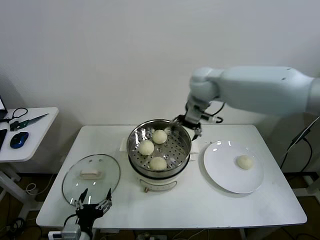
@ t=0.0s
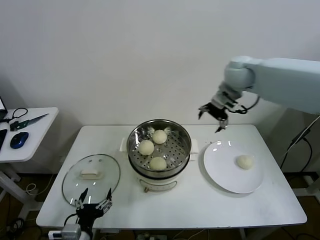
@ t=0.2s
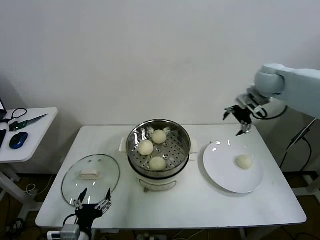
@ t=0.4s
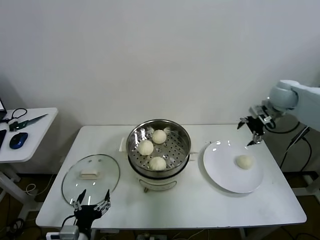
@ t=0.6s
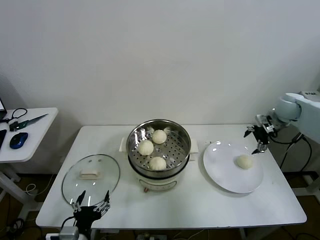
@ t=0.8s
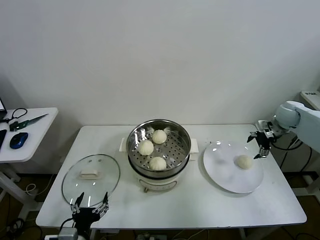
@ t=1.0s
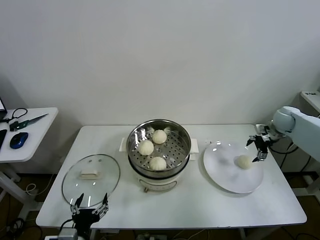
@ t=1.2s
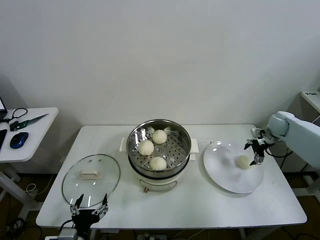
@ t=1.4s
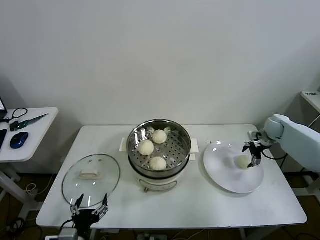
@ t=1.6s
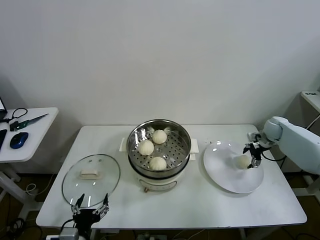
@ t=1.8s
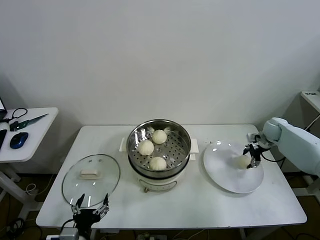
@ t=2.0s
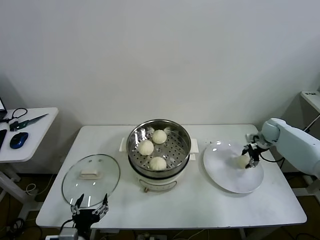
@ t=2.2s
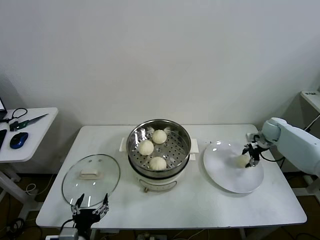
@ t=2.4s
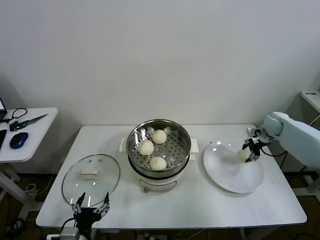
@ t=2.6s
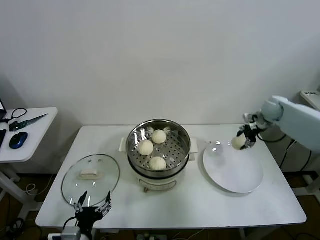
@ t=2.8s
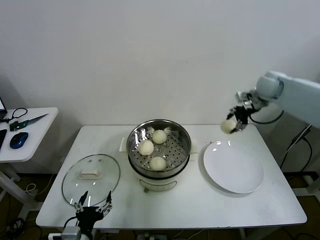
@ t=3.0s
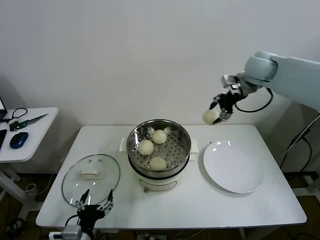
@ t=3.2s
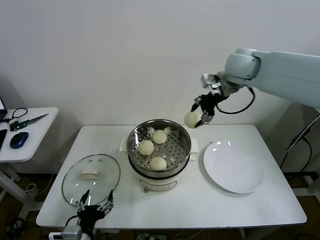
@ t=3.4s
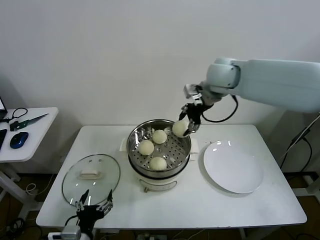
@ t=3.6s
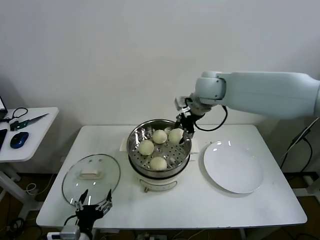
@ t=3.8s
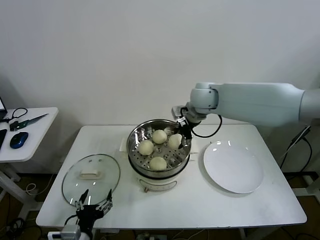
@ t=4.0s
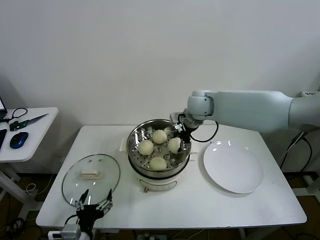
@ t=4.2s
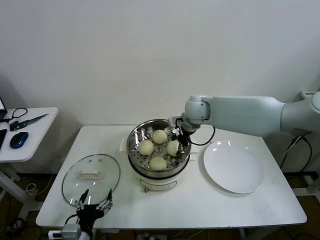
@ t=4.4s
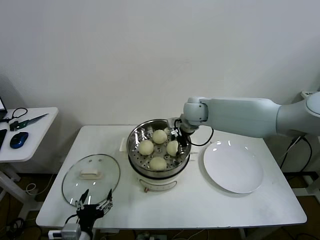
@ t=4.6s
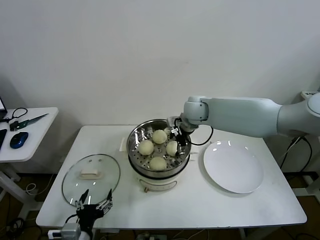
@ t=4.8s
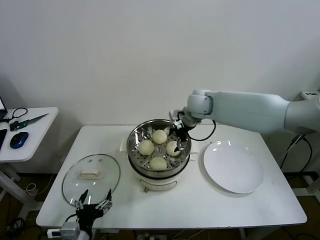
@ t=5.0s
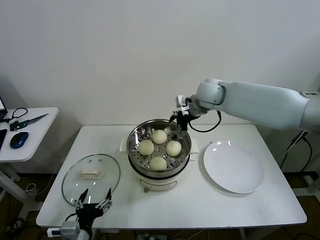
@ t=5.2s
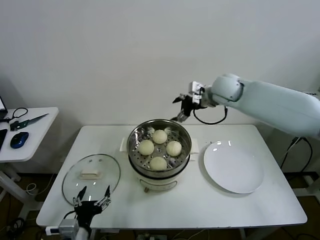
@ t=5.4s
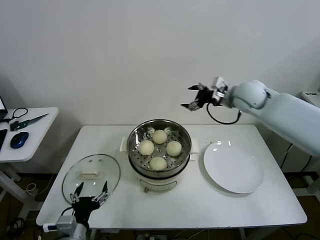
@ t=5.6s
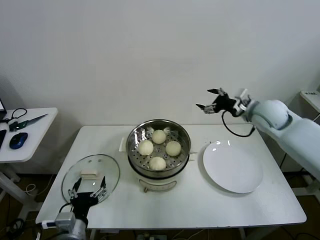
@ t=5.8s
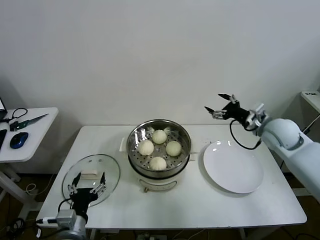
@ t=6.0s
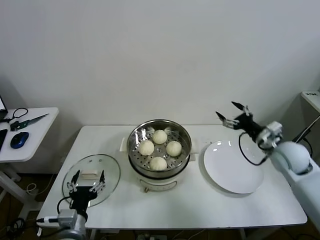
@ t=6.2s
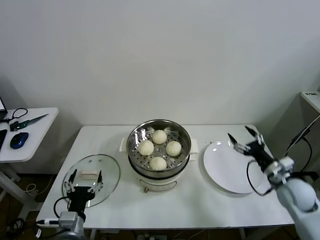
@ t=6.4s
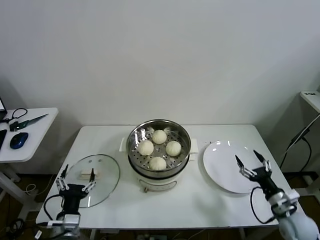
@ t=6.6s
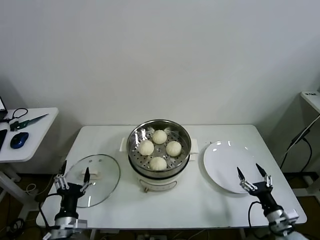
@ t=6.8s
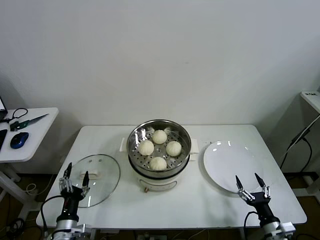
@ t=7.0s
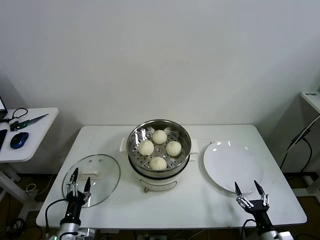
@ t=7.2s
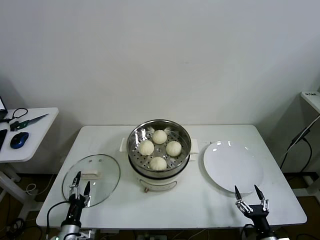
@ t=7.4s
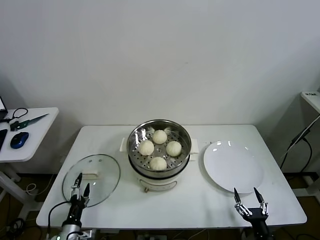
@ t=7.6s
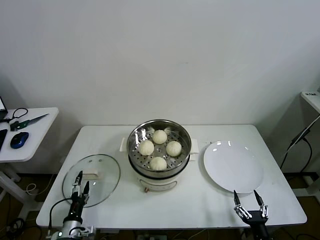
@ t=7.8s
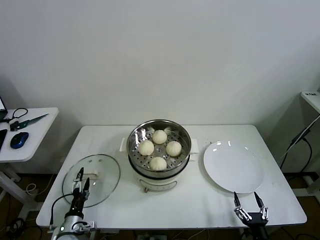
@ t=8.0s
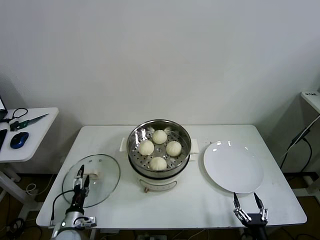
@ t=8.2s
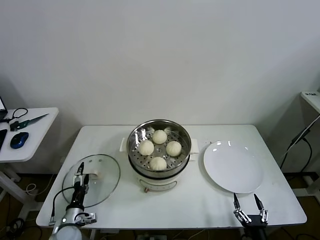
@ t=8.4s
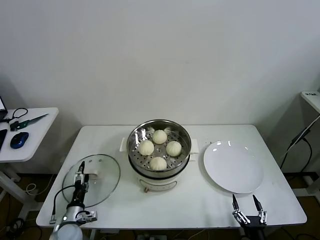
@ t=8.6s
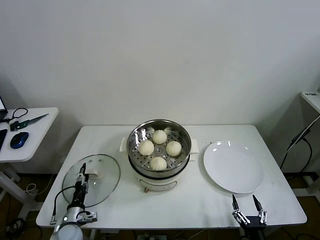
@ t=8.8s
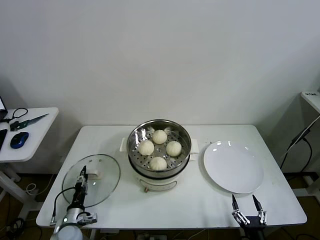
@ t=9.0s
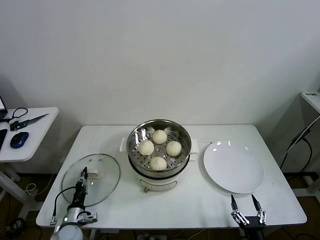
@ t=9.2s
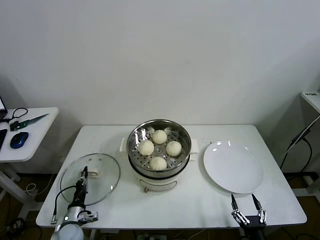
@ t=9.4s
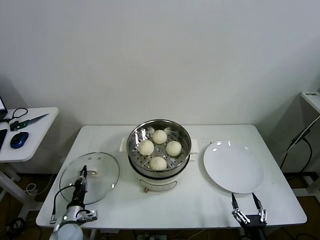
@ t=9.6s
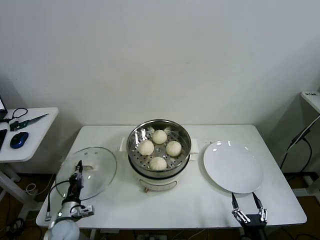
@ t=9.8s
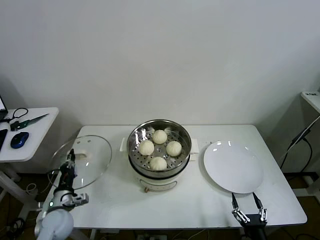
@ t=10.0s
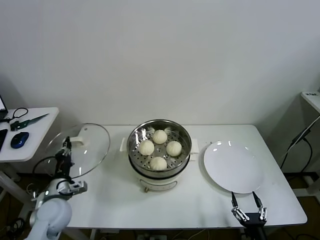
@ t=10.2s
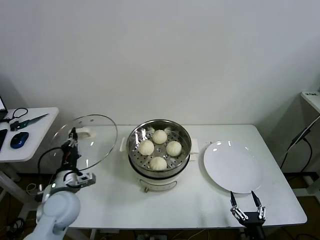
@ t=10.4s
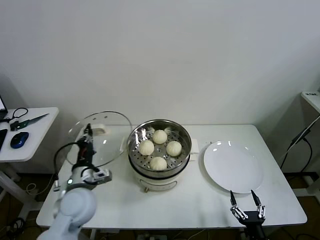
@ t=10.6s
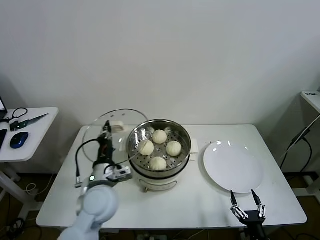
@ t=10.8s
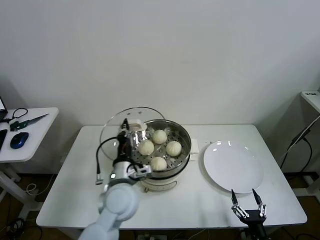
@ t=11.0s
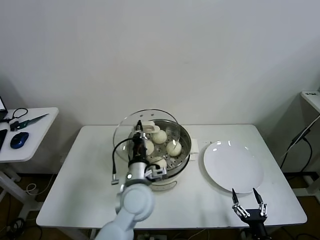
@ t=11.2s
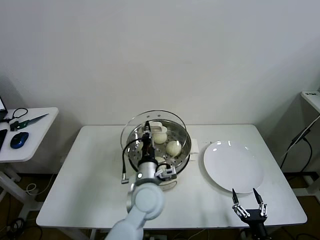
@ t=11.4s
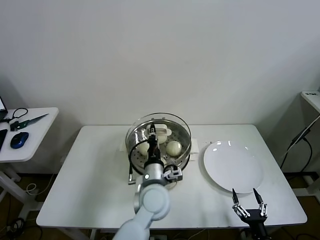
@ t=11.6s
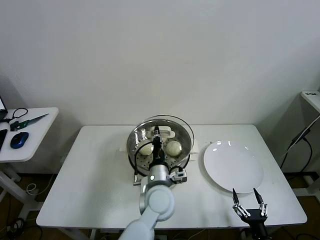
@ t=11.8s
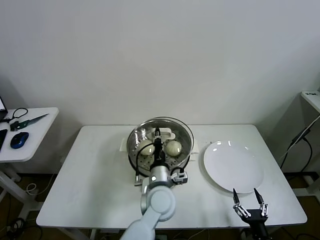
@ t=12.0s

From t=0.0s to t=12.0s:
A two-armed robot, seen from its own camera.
Task of the whole recording: take steamed baozi put them in steamer then cover it.
Step, from t=0.0s to t=2.2s: Grasp the baozi in the plate with right gripper.
Step, from t=2.4s to t=4.6s: Place the baozi on the steamer with right gripper.
Step, from t=4.8s to t=9.2s: Grasp the pot lid with left gripper.
From t=0.0s to t=1.6s: The right gripper moves to the right and downward, approximately 40 cm.
From t=1.6s to t=3.0s: The right gripper travels upward and to the left by approximately 20 cm, and closes.
From t=3.0s to t=4.4s: The right gripper goes about 25 cm to the left.
From t=4.4s to t=6.0s: The right gripper is displaced to the right and backward by roughly 25 cm, and opens.
From t=6.0s to t=7.6s: The right gripper shifts roughly 40 cm backward and downward; the left gripper shifts some 20 cm downward and to the left.
From t=7.6s to t=9.0s: The left gripper goes roughly 5 cm forward, and closes up.
From t=9.0s to t=10.4s: The left gripper shifts some 20 cm upward, and closes.
From t=10.4s to t=12.0s: The left gripper is displaced to the right by approximately 30 cm.

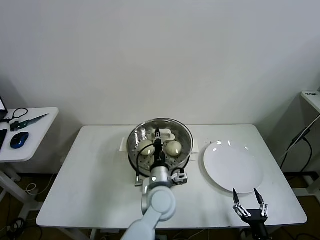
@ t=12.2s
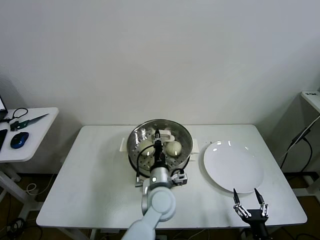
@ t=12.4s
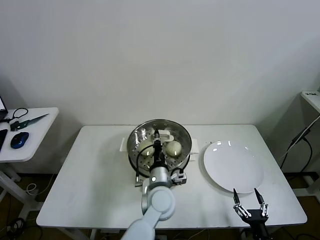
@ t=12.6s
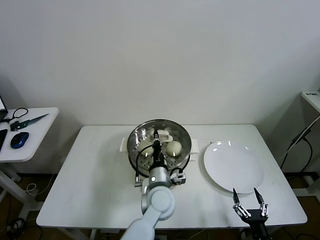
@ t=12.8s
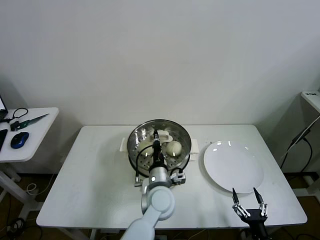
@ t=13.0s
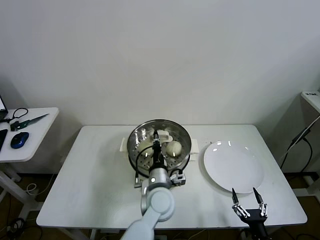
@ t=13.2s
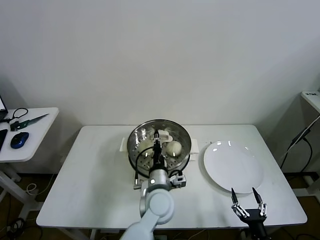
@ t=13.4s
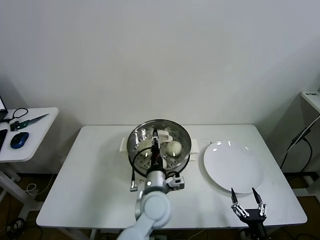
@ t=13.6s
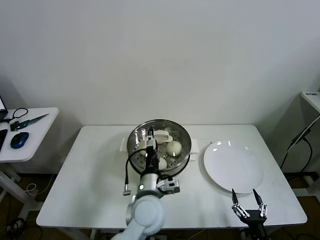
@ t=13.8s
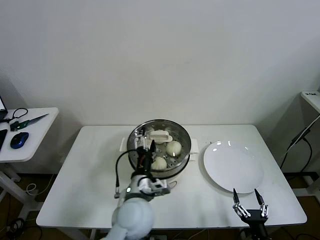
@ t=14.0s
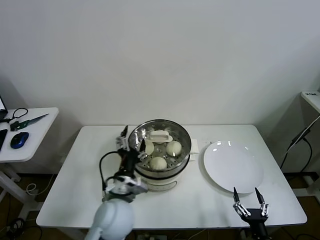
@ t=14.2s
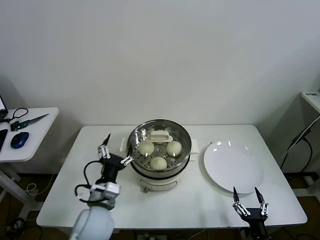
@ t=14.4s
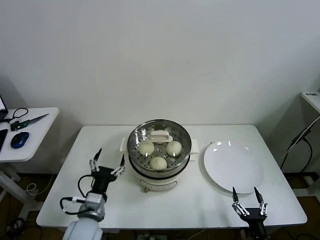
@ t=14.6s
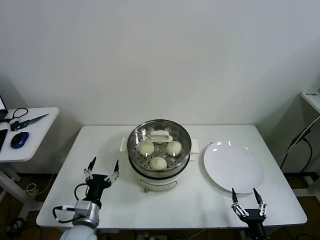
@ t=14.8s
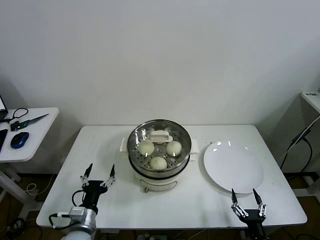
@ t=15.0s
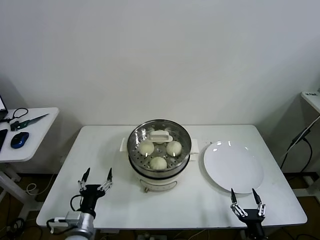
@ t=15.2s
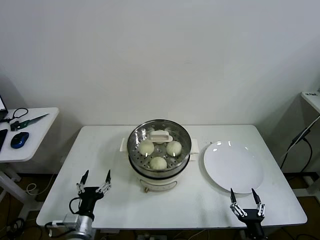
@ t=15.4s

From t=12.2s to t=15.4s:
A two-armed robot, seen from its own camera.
Task of the whole recording: take steamed baozi put them in steamer then cover it.
From t=12.2s to t=13.8s: The left gripper opens.
From t=13.8s to t=15.4s: The left gripper is displaced to the left and downward by some 25 cm.
